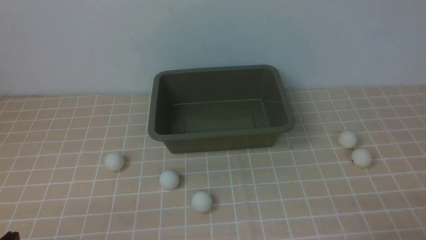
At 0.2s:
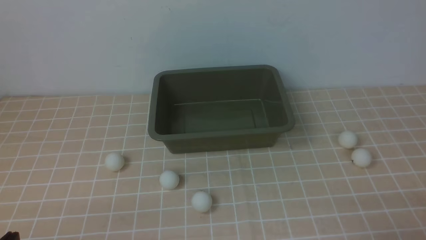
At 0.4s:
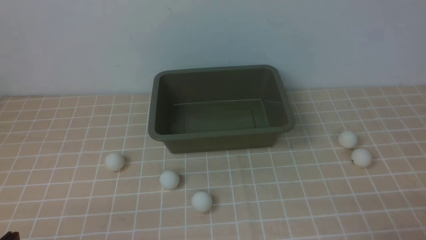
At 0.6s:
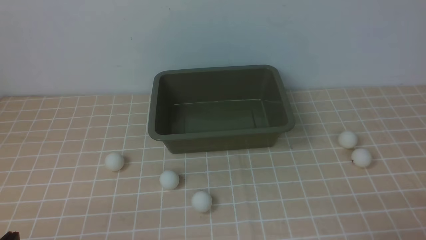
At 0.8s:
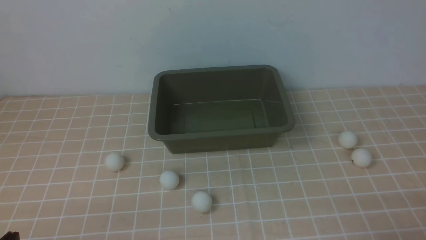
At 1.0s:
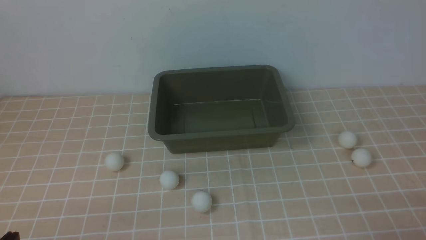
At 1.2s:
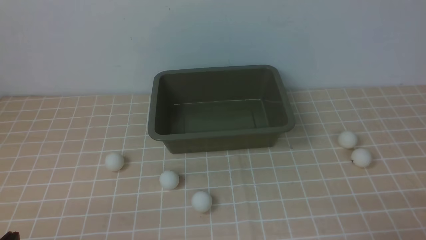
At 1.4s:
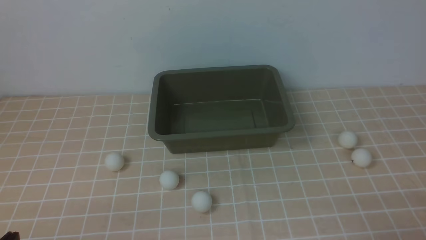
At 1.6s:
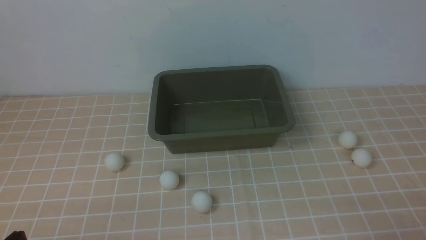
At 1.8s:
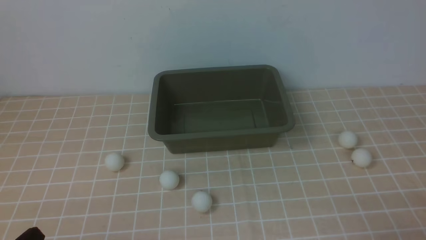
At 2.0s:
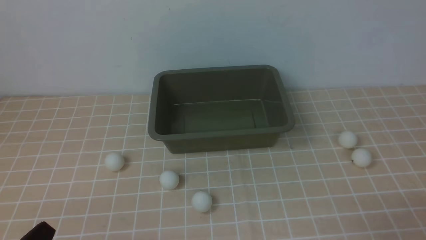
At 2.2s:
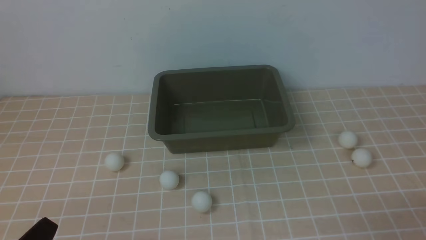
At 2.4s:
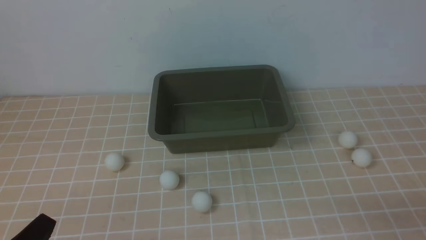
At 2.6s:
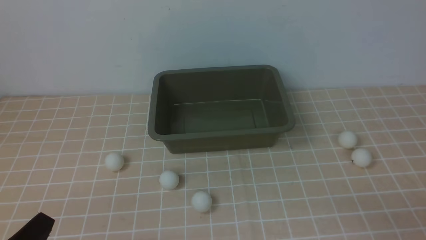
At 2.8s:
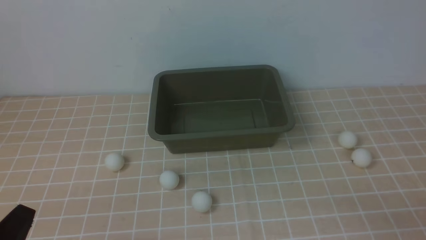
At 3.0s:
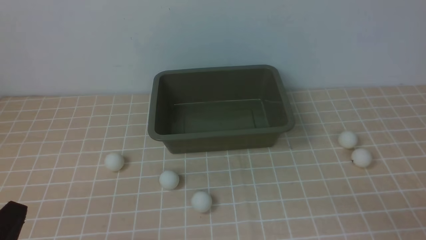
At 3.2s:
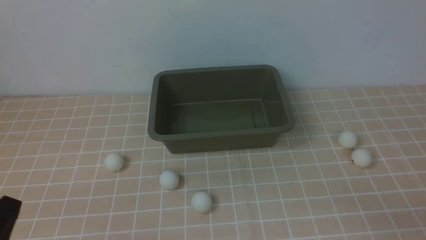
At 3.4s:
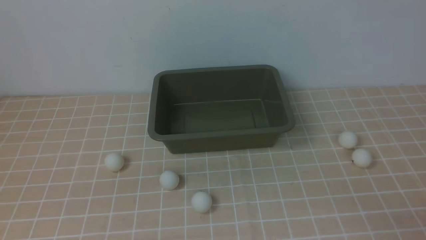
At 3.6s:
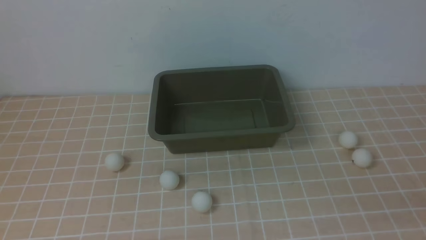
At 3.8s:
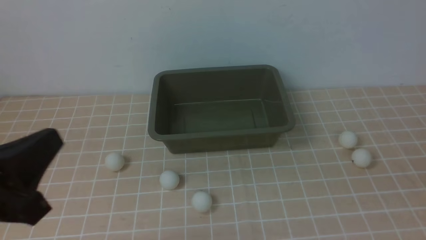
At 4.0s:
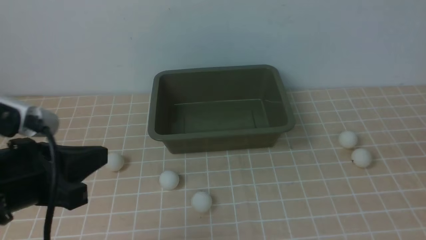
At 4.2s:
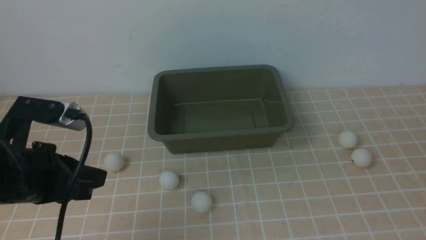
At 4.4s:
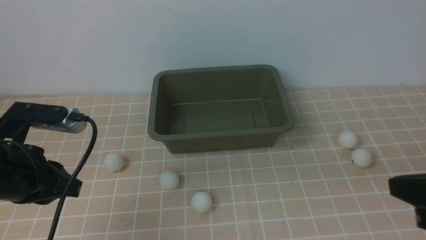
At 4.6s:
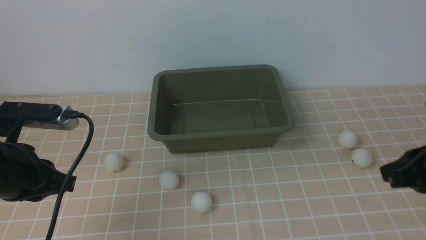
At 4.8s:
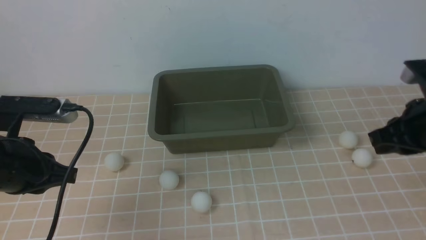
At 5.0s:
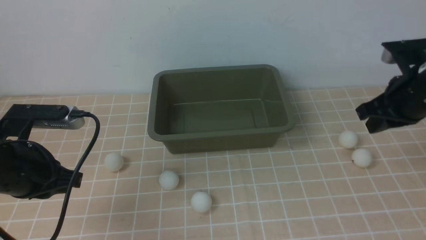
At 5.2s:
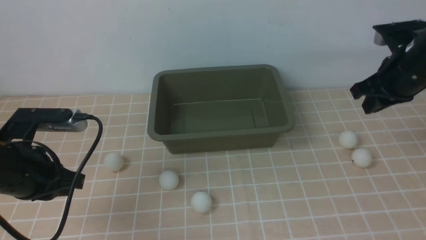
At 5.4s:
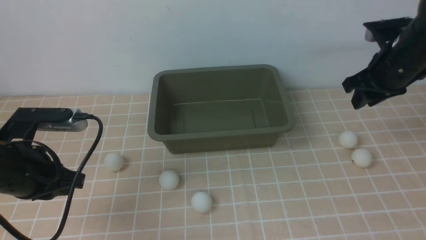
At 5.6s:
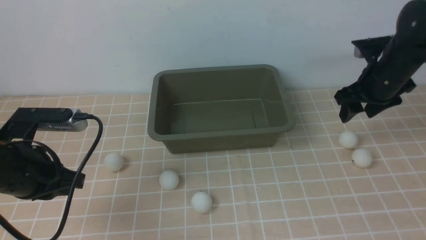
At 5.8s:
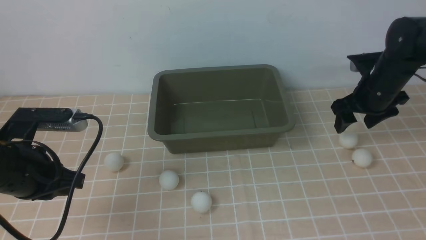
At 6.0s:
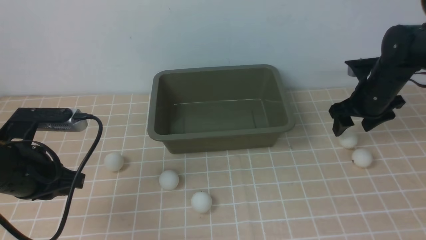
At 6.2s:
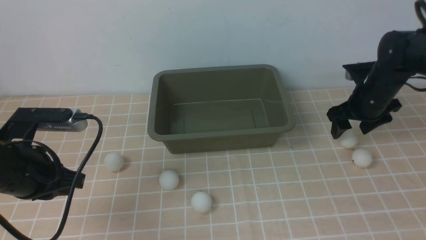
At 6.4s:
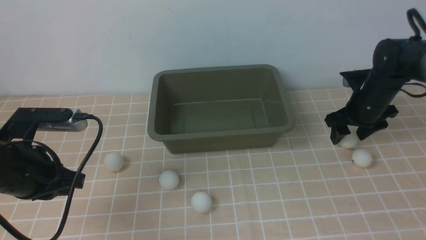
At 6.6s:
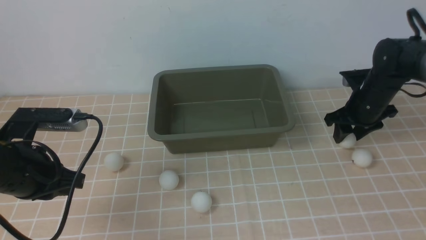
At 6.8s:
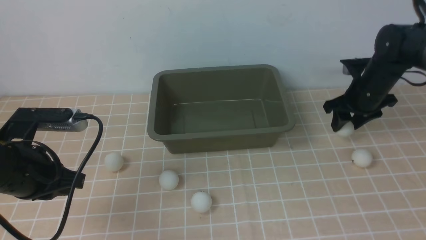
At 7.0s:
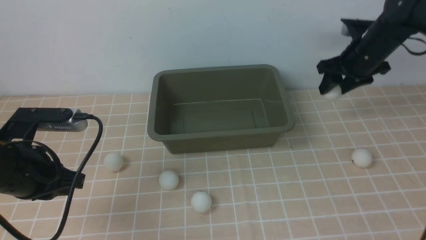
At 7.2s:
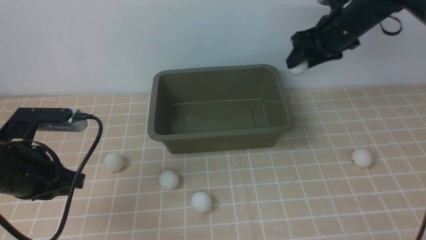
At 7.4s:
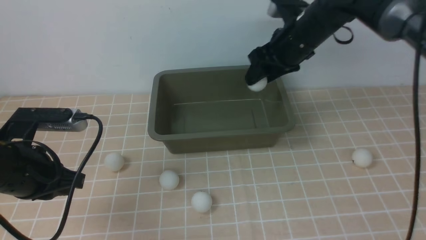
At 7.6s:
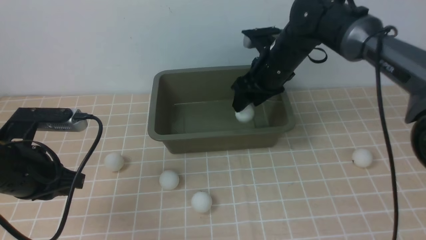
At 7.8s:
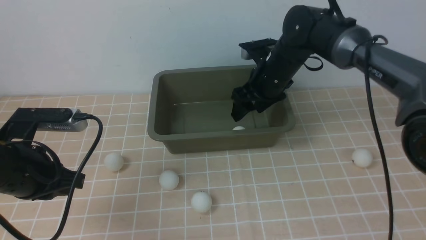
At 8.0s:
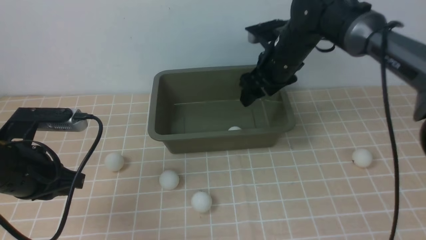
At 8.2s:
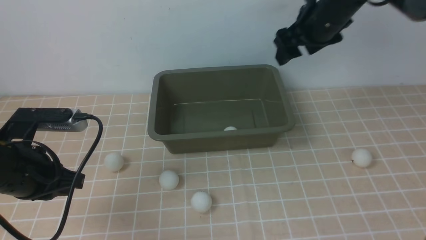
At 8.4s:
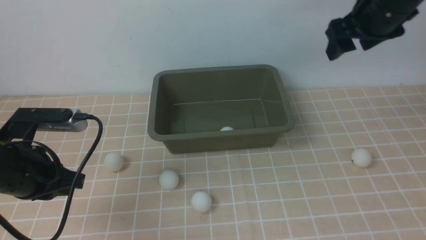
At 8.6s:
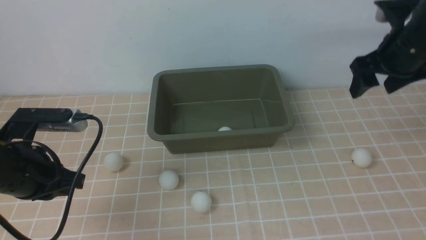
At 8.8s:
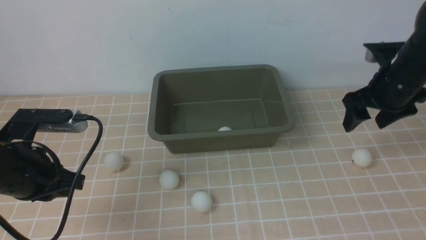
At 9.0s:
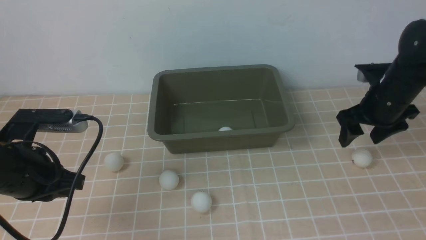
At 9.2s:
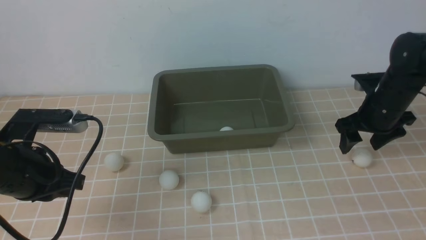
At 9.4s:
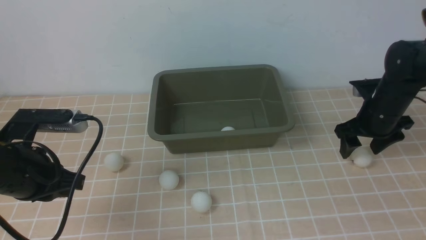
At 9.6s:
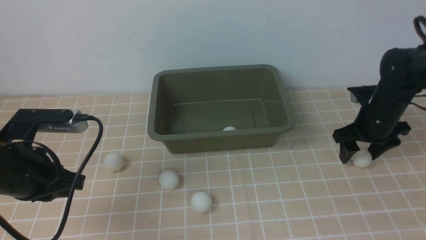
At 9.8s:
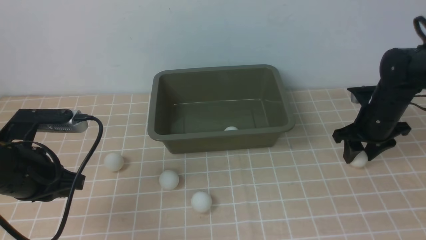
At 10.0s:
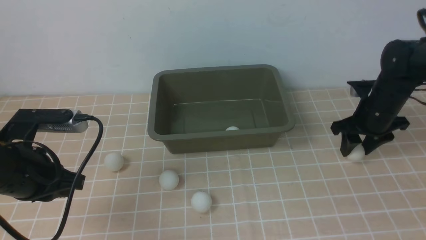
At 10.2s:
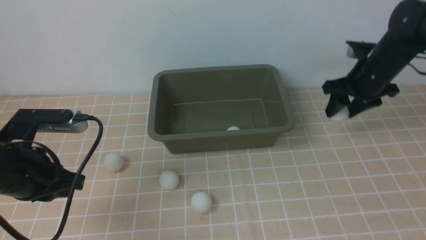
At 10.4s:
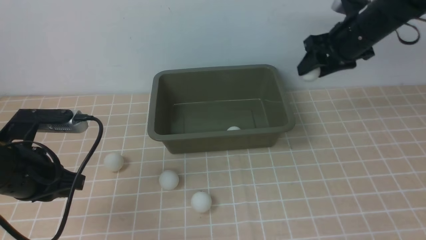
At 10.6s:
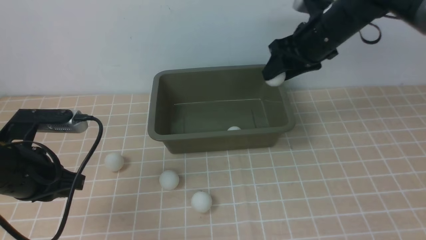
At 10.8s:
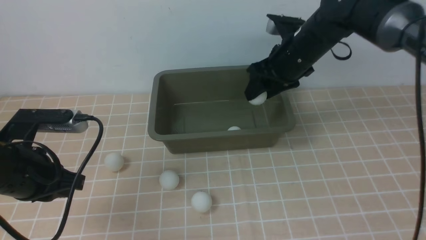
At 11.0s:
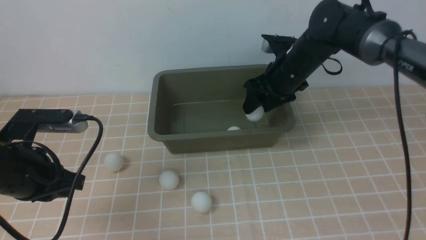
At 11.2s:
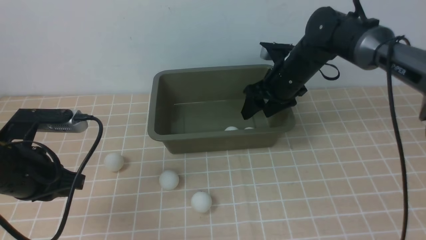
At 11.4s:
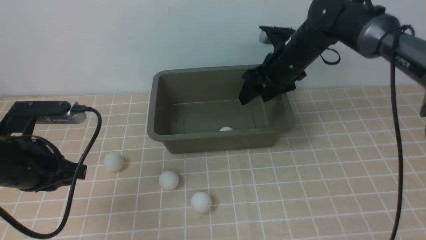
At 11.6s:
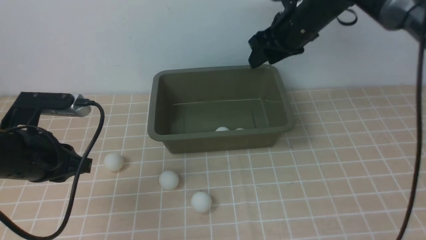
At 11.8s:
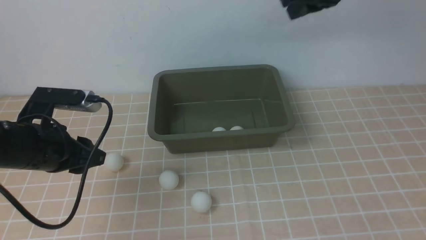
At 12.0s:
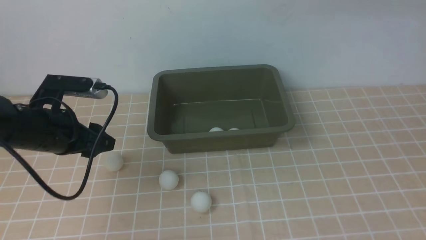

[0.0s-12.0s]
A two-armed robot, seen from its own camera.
Step, 0.0s to 6.8s: use the right arm to clamp the table tennis ball closest to it.
Step, 7.0s to 7.8s: use the right arm to put the table tennis ball into the box.
Step, 8.0s to 10.0s: use the right arm to clamp the table tennis ball closest to it.
Step, 10.2s to 11.2s: use the right arm to put the table tennis ball into the box.
3.0s to 4.4s: The left gripper travels forward and upward by about 15 cm, while the right gripper moves upward and forward, some 15 cm.
4.4s to 6.0s: The right gripper goes some 30 cm forward and downward, and opens its fingers.
6.0s to 7.6s: The right gripper is displaced to the left by about 15 cm.
7.6s to 9.0s: The right gripper is displaced to the right by about 15 cm.
9.0s to 10.4s: The right gripper moves upward, to the left and forward, about 10 cm, and closes up.
10.4s to 12.0s: The right gripper shifts about 20 cm upward and backward, and closes up; the left gripper heads forward, covering some 5 cm, and opens up.

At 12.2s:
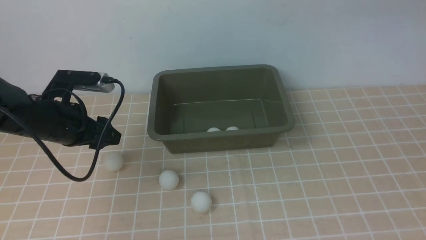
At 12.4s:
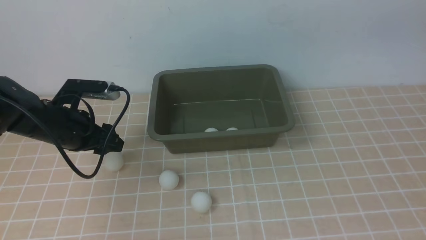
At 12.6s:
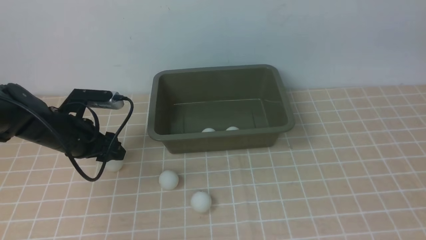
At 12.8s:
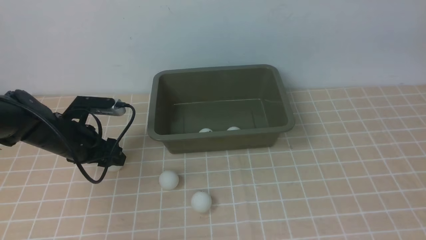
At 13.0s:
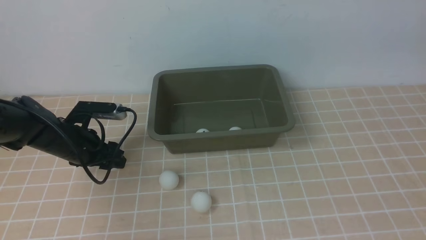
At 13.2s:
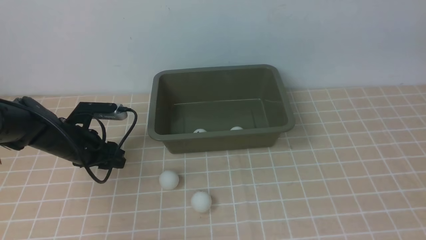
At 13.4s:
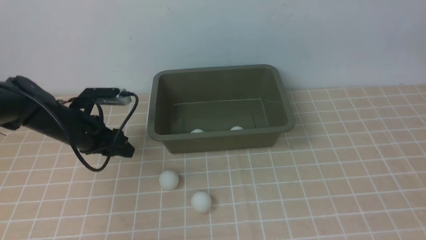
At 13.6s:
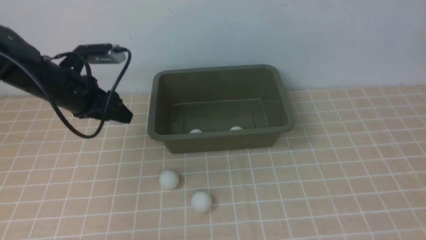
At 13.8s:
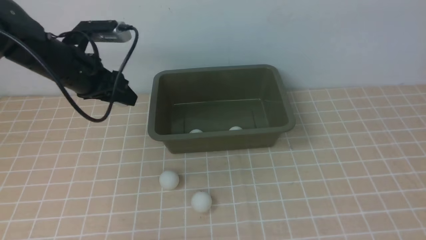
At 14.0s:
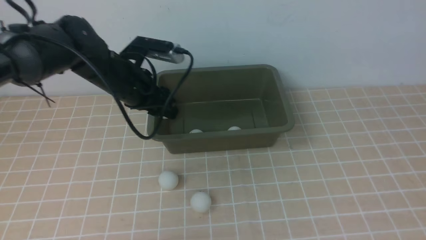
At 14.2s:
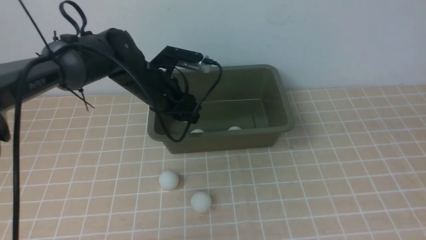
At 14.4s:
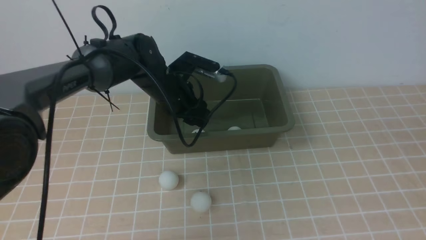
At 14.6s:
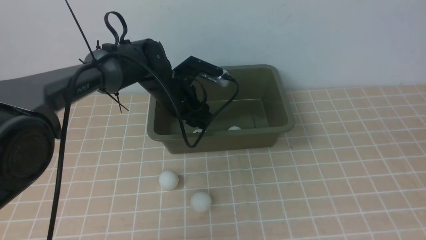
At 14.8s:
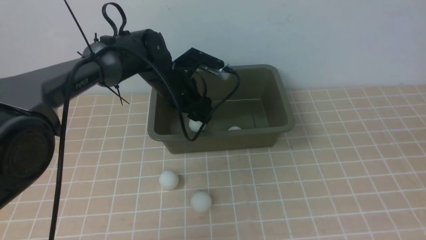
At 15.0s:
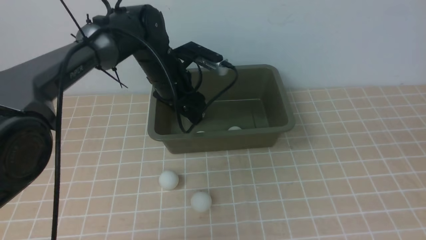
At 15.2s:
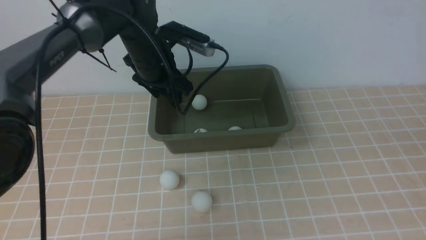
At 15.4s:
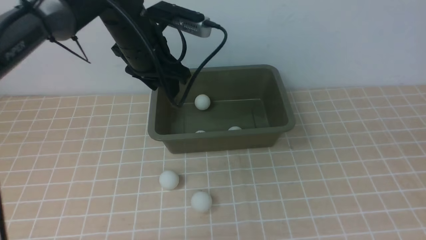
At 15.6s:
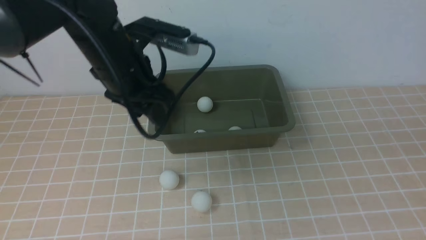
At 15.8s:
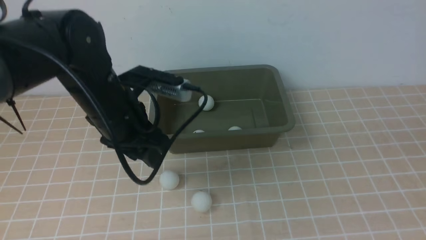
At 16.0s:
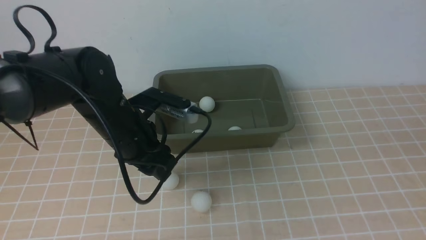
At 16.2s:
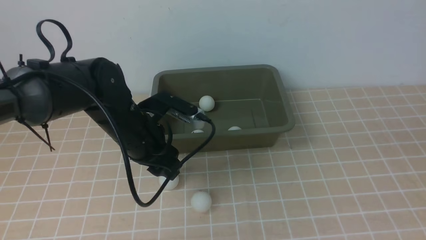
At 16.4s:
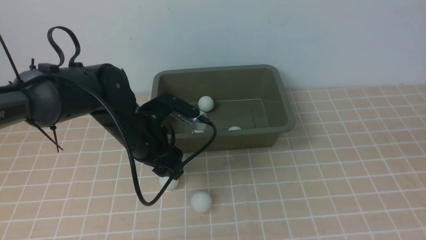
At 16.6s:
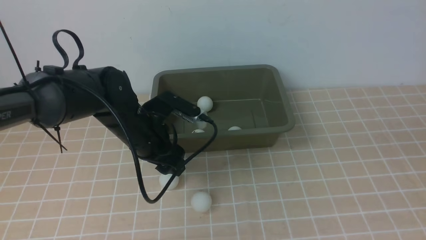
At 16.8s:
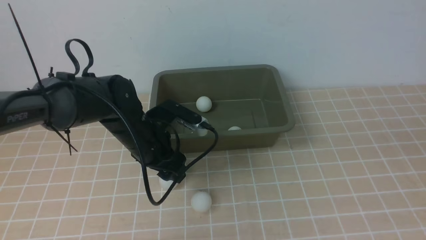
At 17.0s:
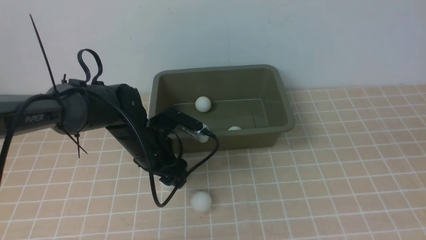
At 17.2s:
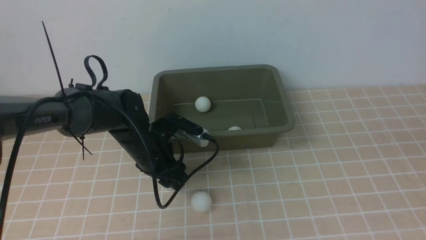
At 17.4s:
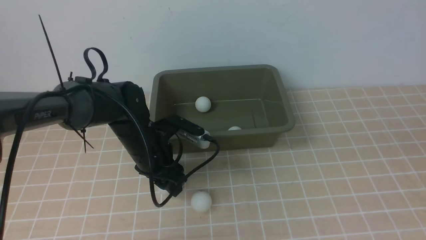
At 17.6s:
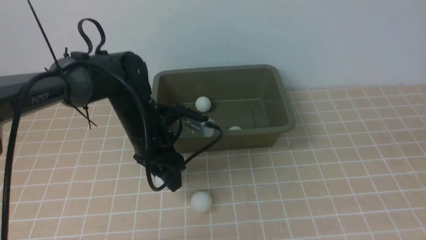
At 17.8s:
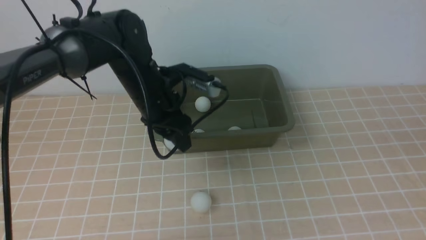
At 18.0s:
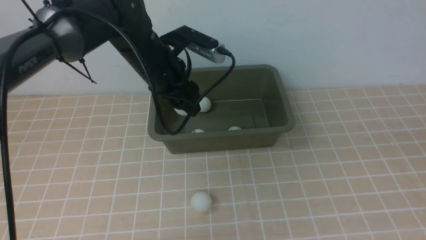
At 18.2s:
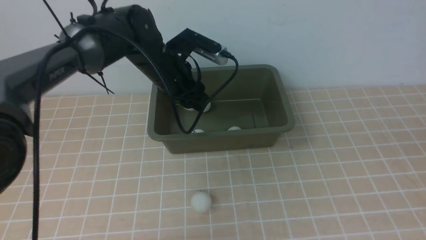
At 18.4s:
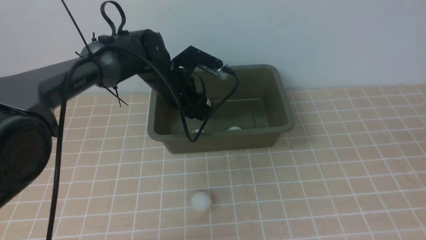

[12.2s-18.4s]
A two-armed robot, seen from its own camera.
Step, 12.2s to 13.4s: use the left arm to clamp the table tennis ball closest to it.
Step, 13.8s to 15.0s: use the left arm to put the table tennis ball into the box.
Step, 15.2s to 17.6s: use the left arm to clamp the table tennis ball closest to it.
12.2s to 13.8s: The left gripper travels forward by about 5 cm.
13.8s to 15.4s: The left gripper heads to the right and upward, covering some 10 cm. The right gripper is displaced backward and downward by approximately 10 cm.
15.4s to 16.8s: The left gripper goes roughly 15 cm downward.
16.8s to 18.4s: The left gripper is displaced forward by about 10 cm.
